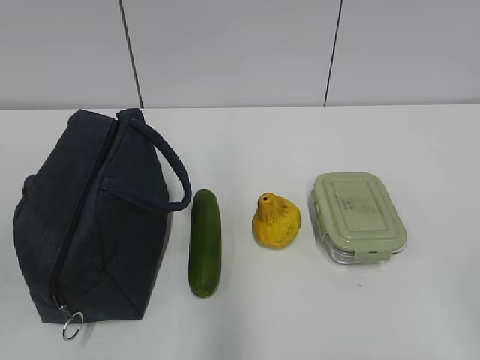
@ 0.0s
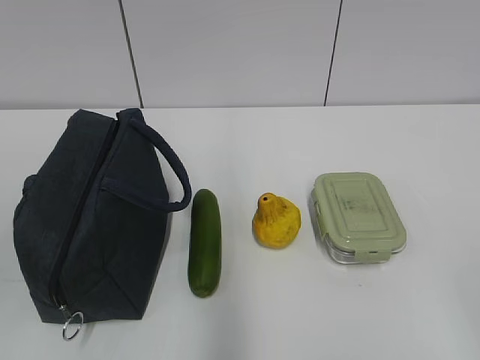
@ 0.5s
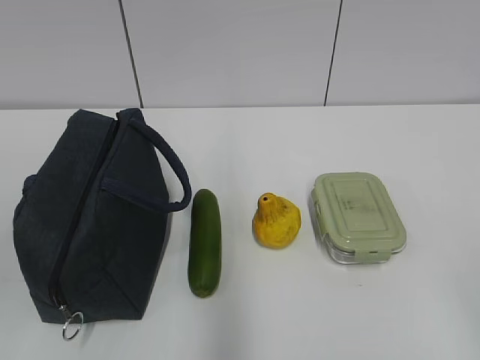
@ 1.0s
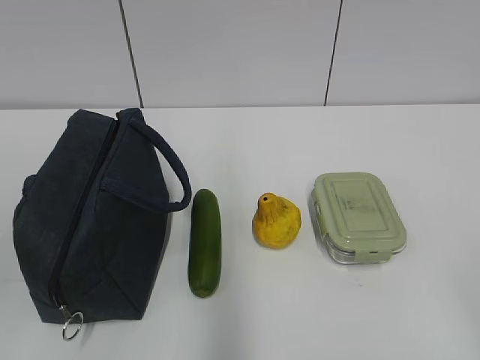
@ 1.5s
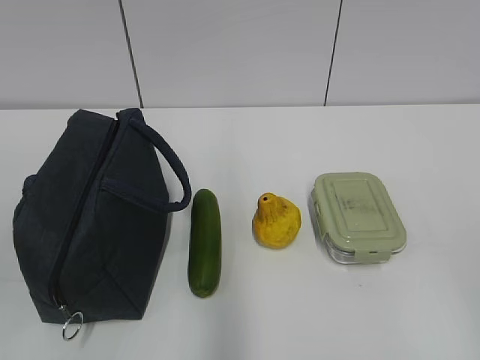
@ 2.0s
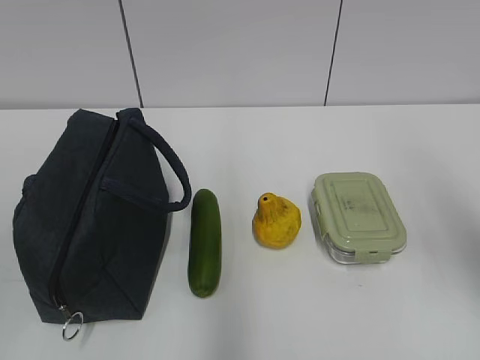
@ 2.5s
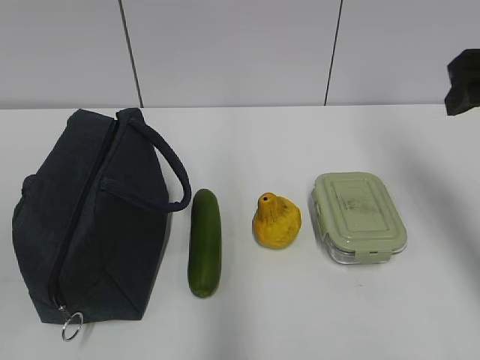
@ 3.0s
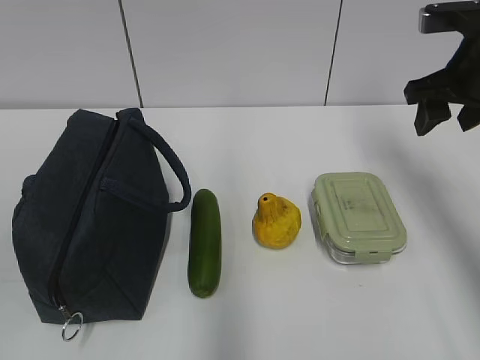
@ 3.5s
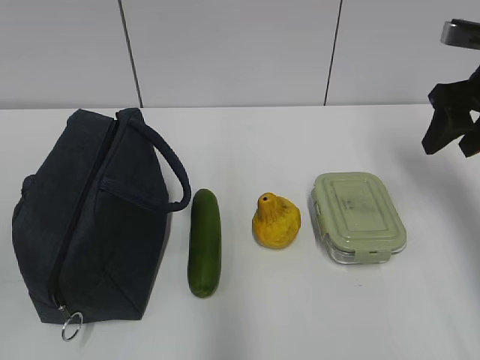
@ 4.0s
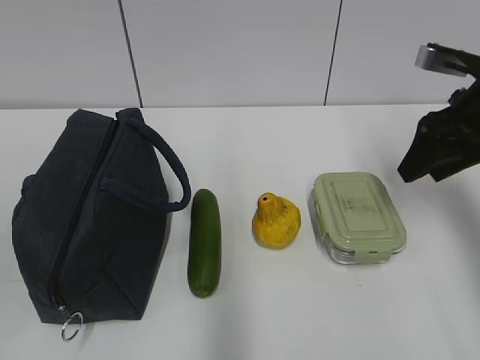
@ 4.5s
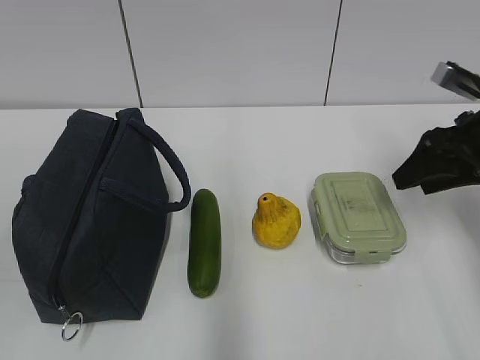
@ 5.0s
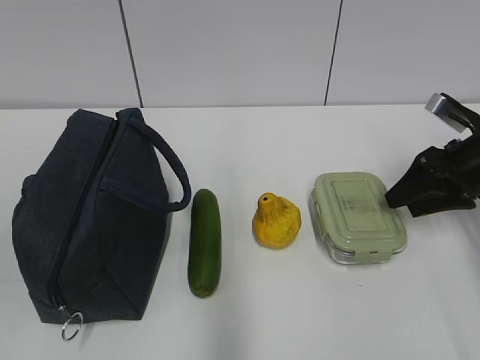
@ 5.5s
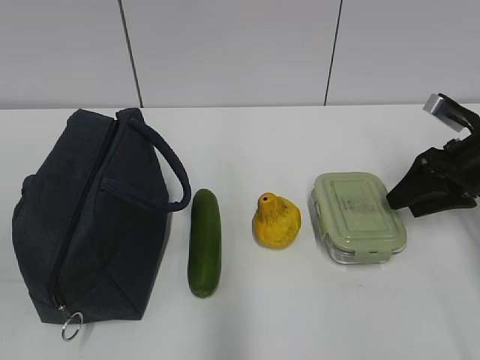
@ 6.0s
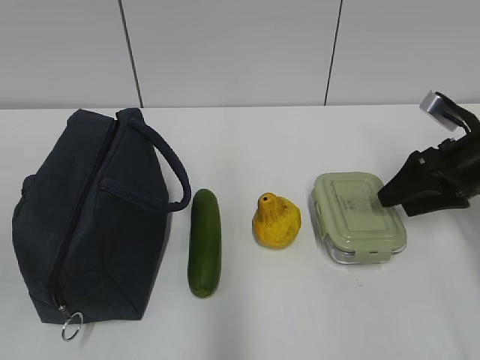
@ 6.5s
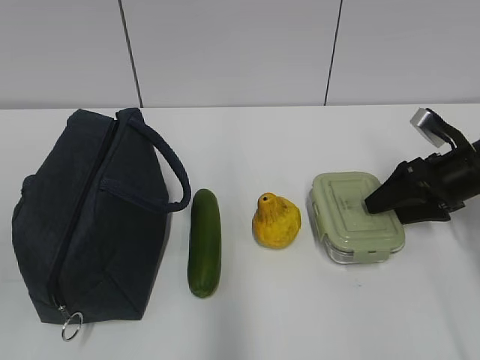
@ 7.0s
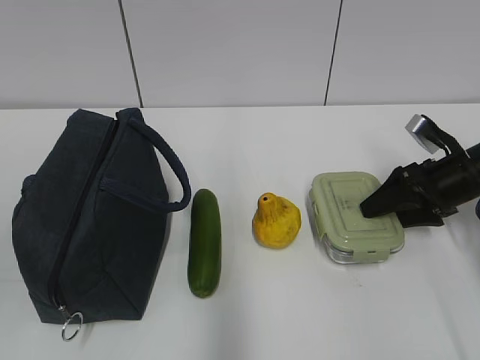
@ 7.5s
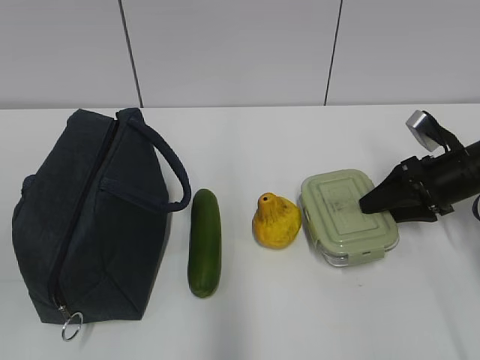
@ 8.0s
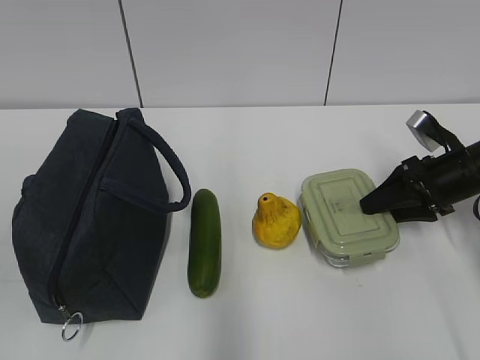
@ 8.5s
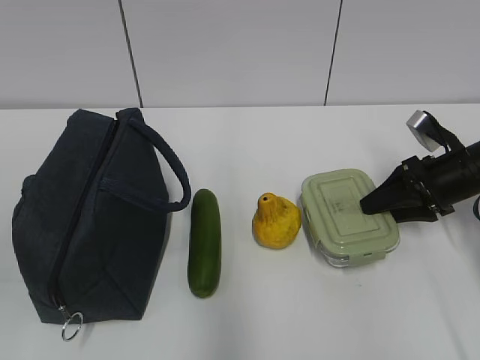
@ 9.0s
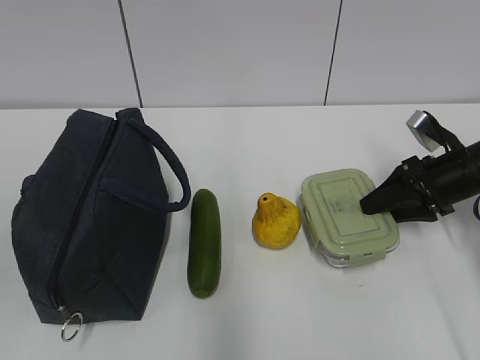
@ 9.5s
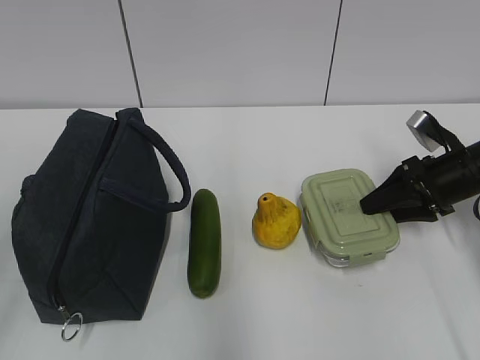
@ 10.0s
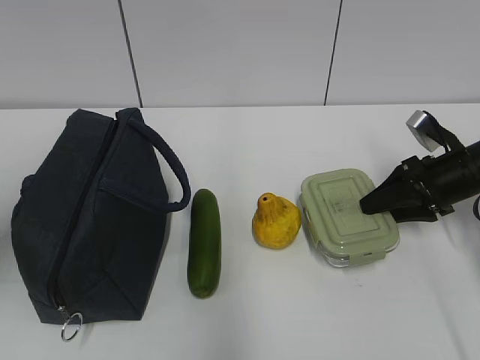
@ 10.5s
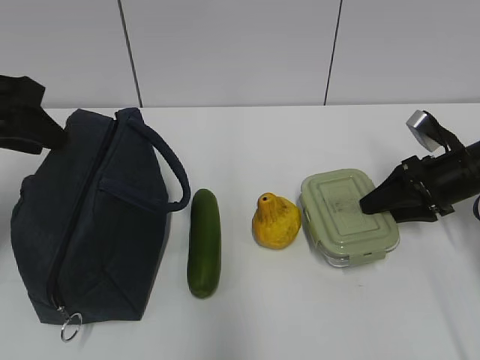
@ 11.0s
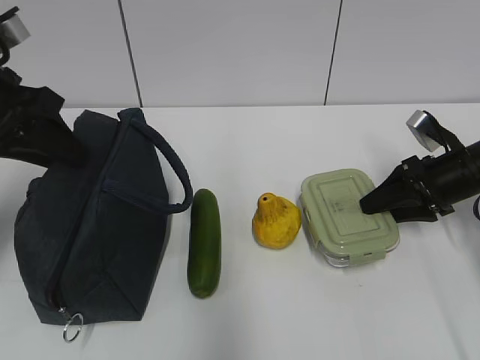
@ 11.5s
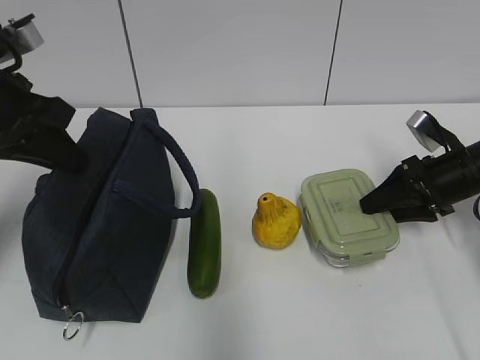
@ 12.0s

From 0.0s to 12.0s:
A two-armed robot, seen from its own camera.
Step, from 0.0s to 7.5s: Grab the lunch box with your right hand.
From 2.0s to 4.0s: The right gripper is displaced forward by about 35 cm.
From 4.0s to 6.0s: The right gripper shifts roughly 10 cm downward.
From 6.0s to 8.0s: The grippers move only a little.
From 10.0s to 12.0s: The left gripper shifts about 25 cm forward, and closes.

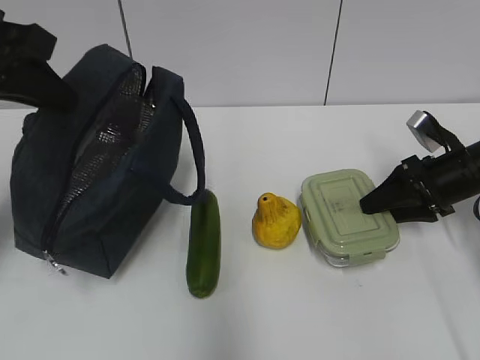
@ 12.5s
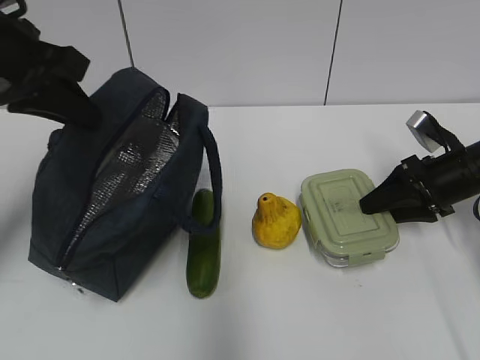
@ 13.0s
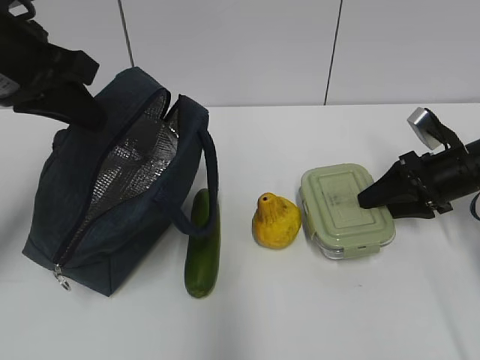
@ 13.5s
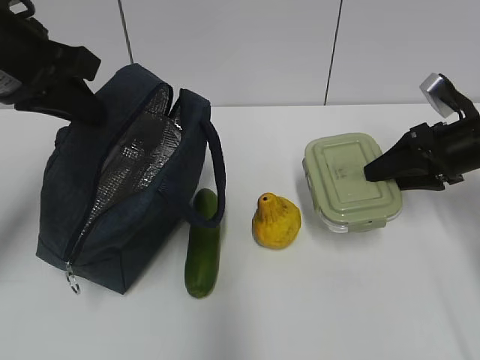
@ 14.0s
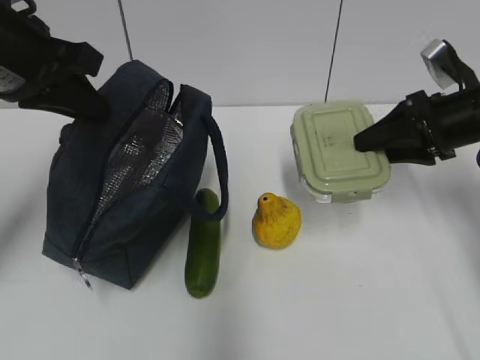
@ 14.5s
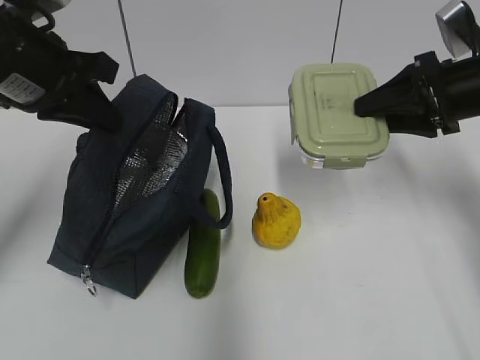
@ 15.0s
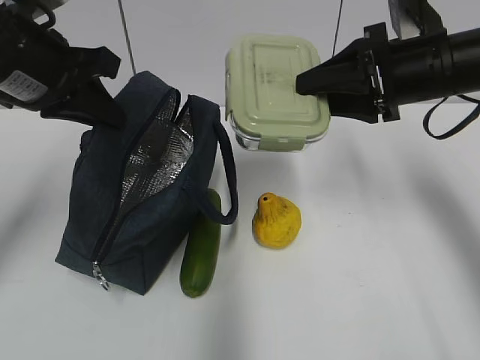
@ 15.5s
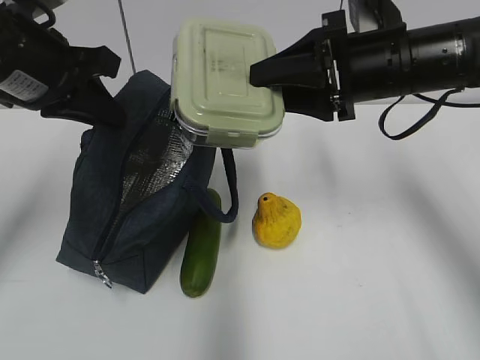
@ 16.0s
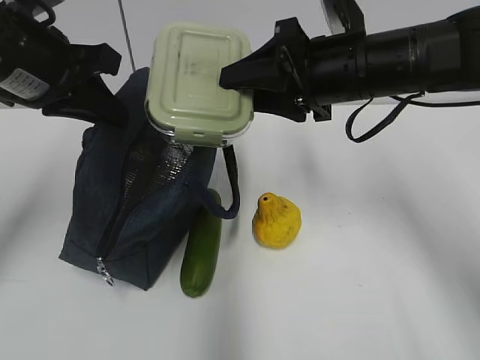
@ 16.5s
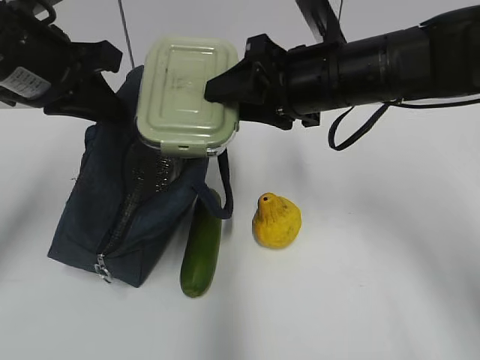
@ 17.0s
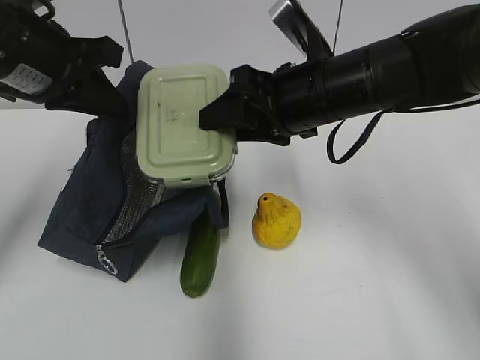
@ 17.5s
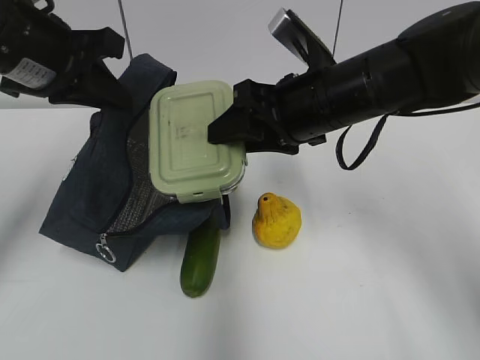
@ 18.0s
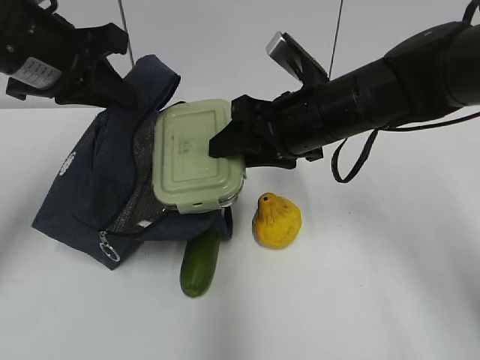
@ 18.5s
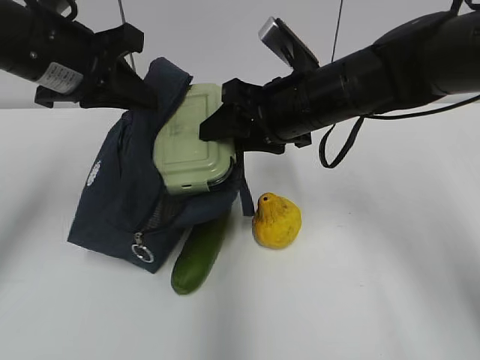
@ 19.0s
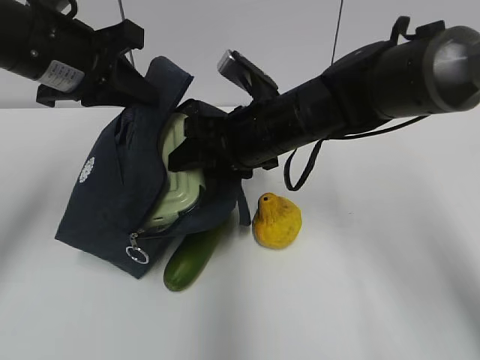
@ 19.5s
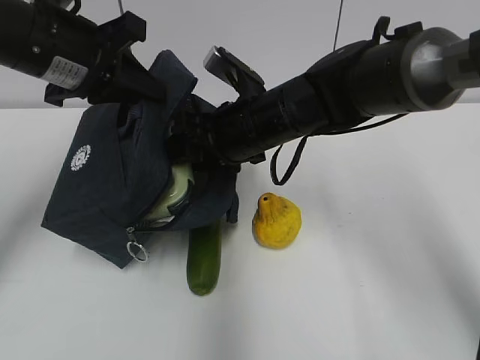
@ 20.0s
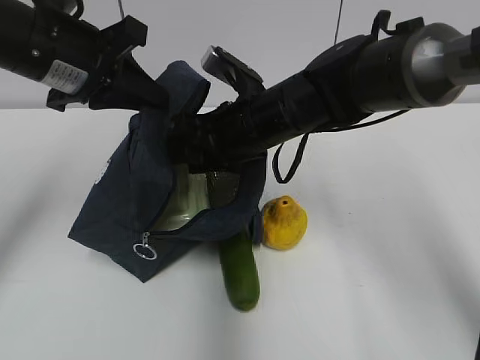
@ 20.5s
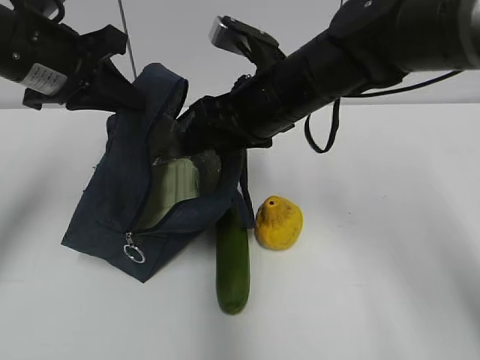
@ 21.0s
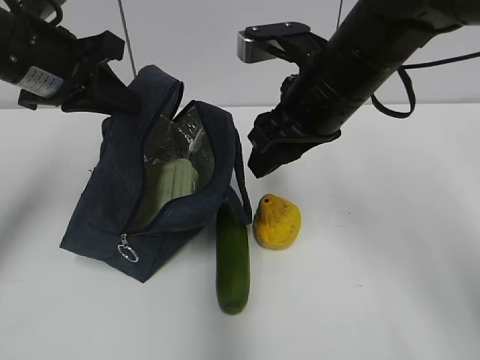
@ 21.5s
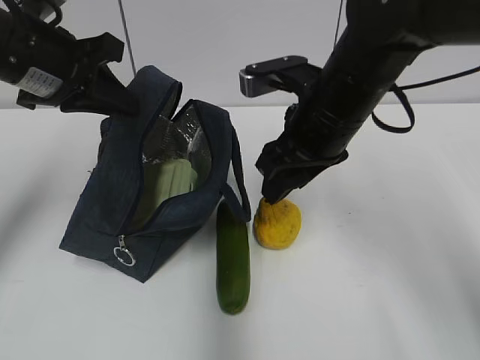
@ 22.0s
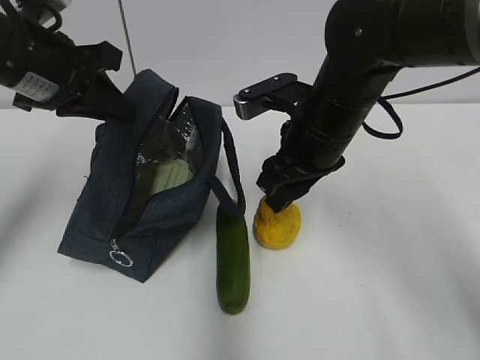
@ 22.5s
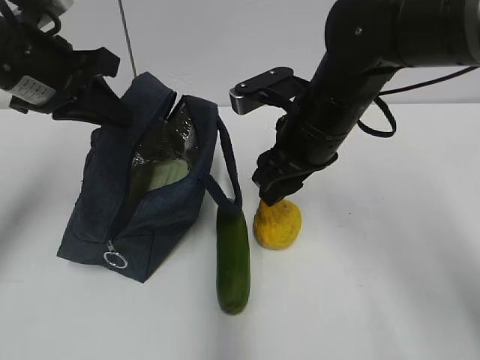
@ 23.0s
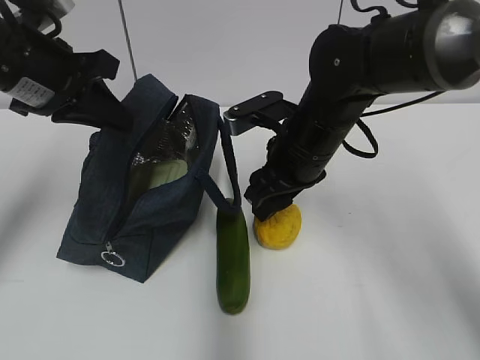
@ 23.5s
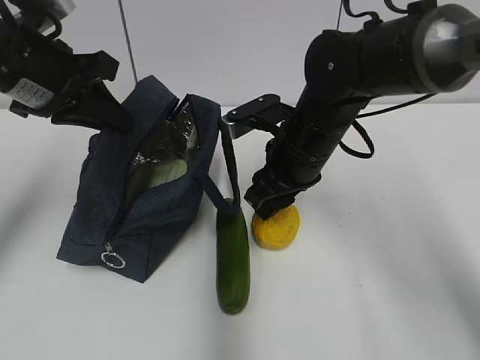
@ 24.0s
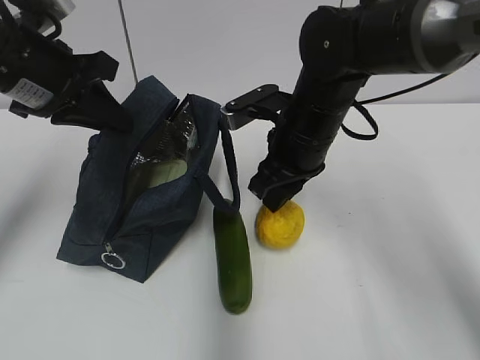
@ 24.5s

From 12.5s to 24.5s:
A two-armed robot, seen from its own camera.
Step, from 12.5s to 17.0s: Grab the lunch bag with your left hand.
Step, from 17.5s to 20.5s: Place it into the bag with your right hand.
Step, from 21.0s to 24.0s: Grab the pear with your right hand.
From 12.5s to 14.5s: The right gripper travels upward by roughly 10 cm.
From 14.5s to 16.5s: The right gripper moves to the left and upward, about 15 cm.
From 16.5s to 18.5s: The right gripper shifts by roughly 5 cm.
From 18.5s to 20.5s: The right gripper moves to the left, some 5 cm.
From 20.5s to 22.5s: The right gripper goes approximately 5 cm to the right.
From 22.5s to 24.5s: The grippers stay close to where they were, moving slightly.

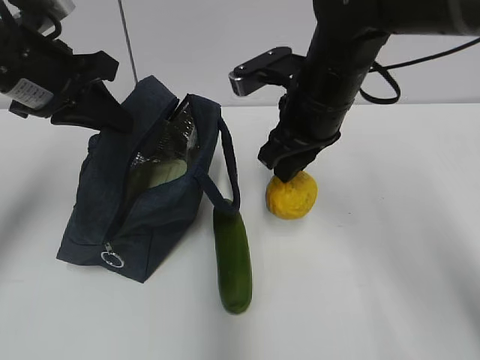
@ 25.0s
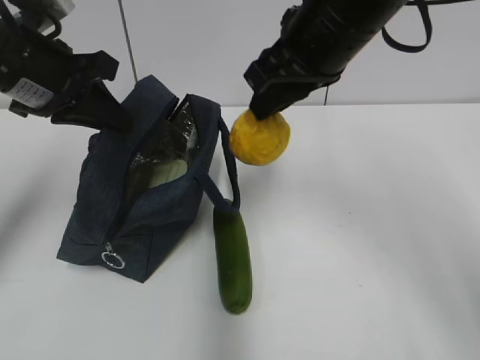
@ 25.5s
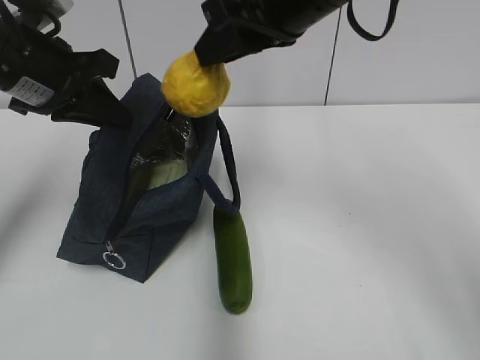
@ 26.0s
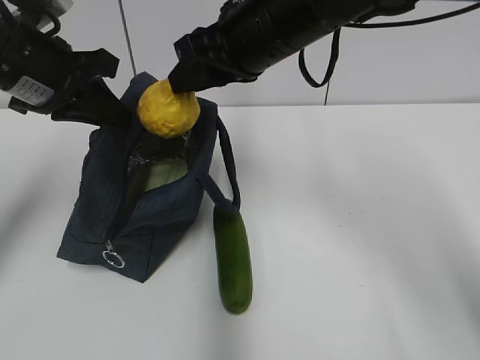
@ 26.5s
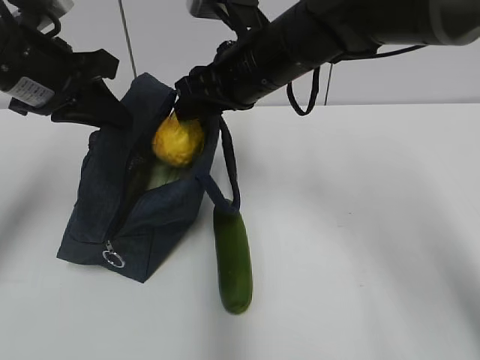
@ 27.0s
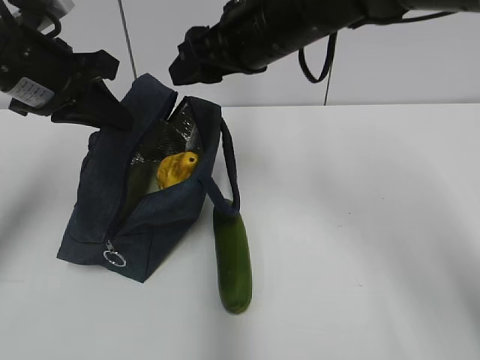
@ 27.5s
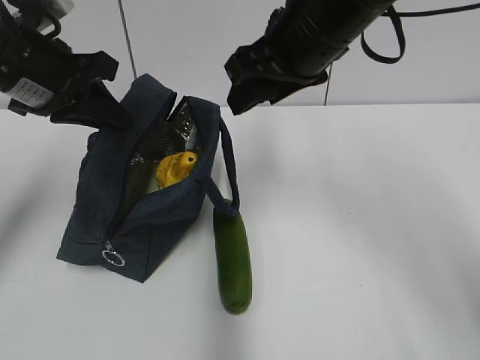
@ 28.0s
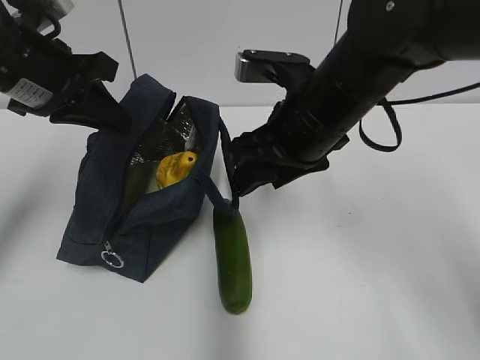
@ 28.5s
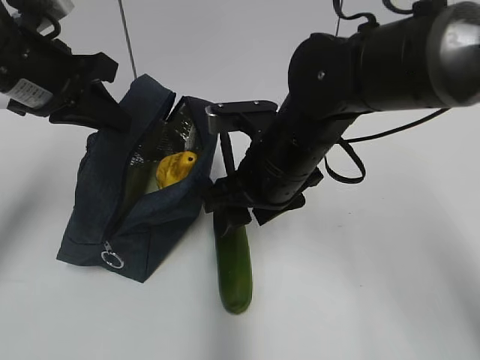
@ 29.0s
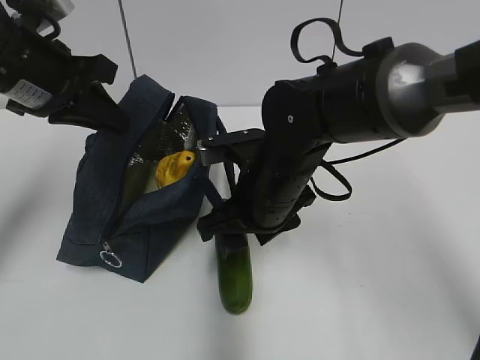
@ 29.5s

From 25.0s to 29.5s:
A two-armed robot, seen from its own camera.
Step, from 25.0s to 27.0s: Place it into the bag with your right hand.
From 25.0s to 27.0s: The right gripper travels to the left by approximately 5 cm, and moves some 10 cm upward and comes back.
From 27.0s to 29.5s: The right gripper is displaced downward and backward by some 10 cm.
